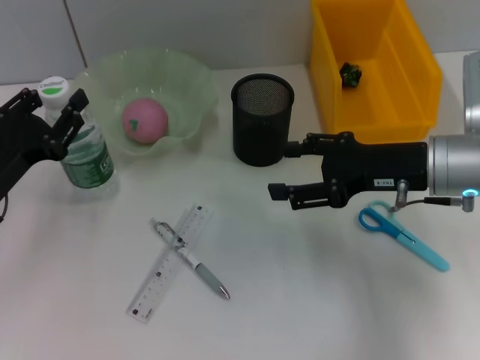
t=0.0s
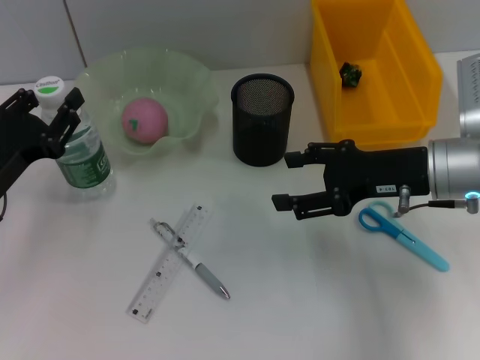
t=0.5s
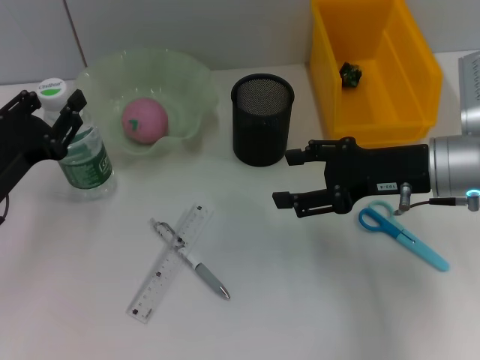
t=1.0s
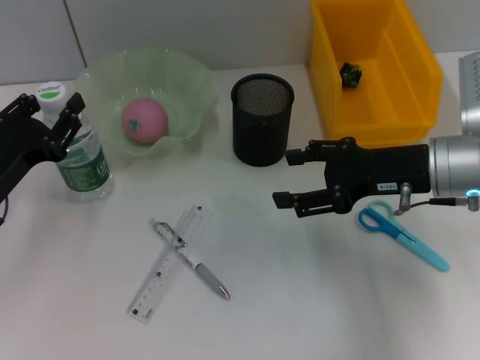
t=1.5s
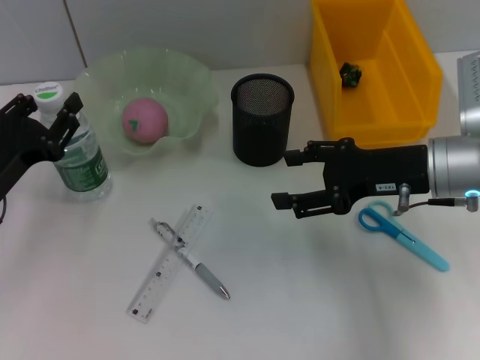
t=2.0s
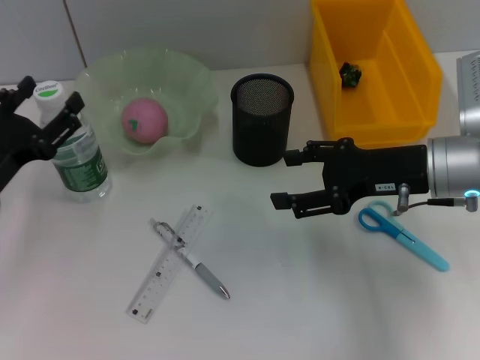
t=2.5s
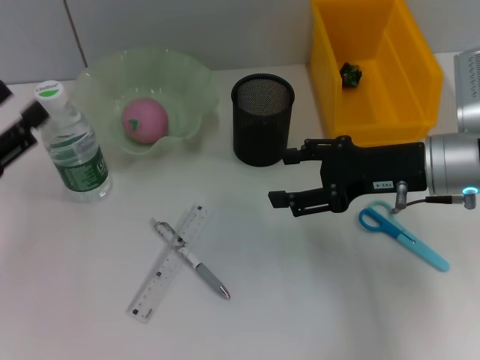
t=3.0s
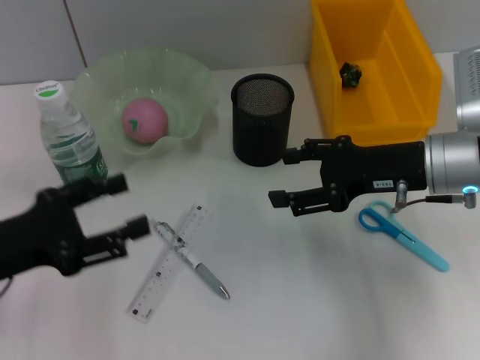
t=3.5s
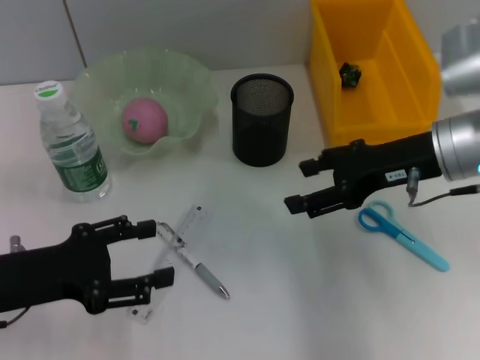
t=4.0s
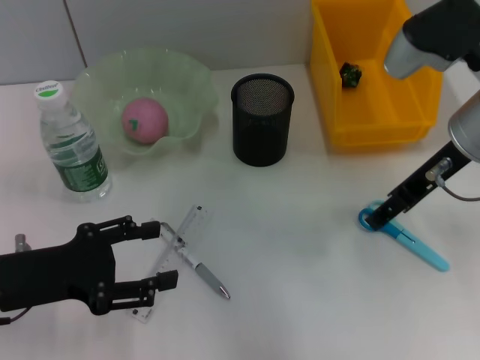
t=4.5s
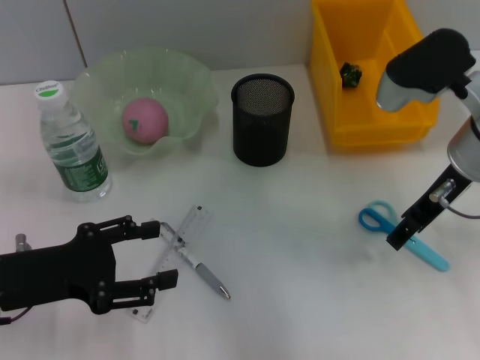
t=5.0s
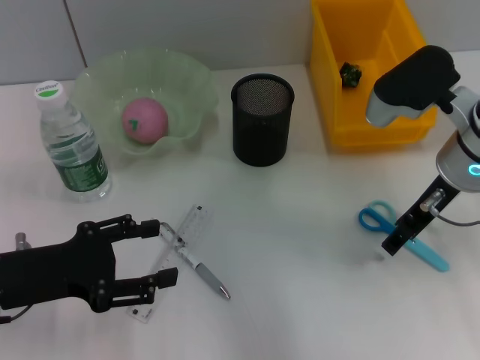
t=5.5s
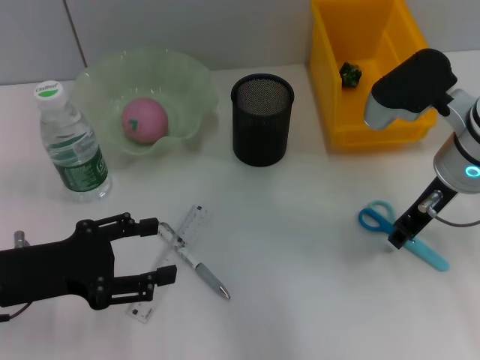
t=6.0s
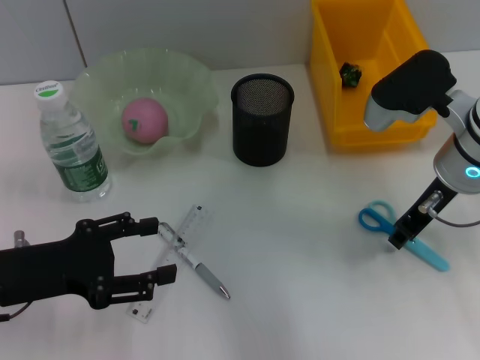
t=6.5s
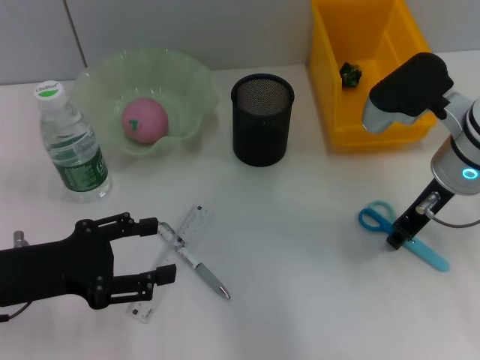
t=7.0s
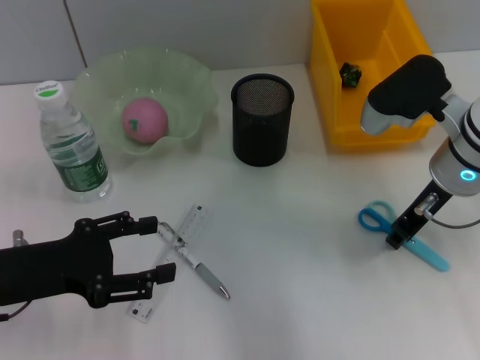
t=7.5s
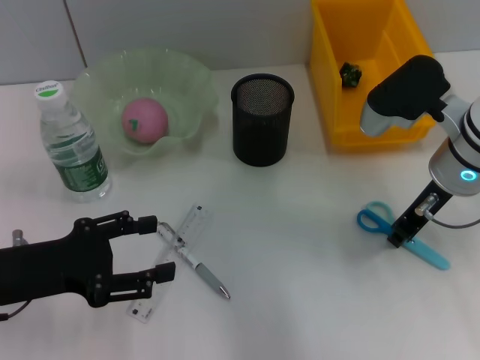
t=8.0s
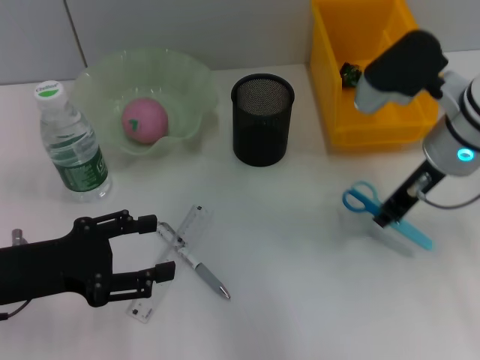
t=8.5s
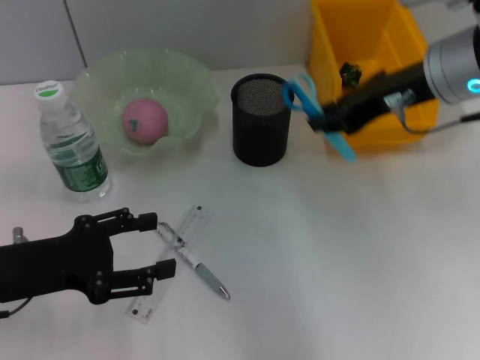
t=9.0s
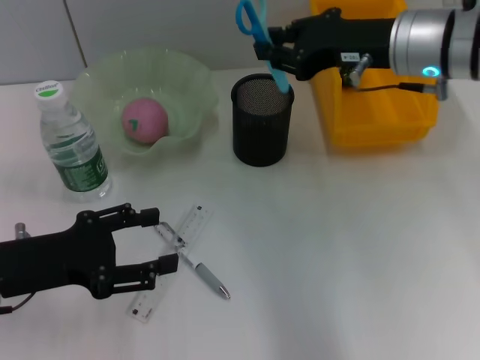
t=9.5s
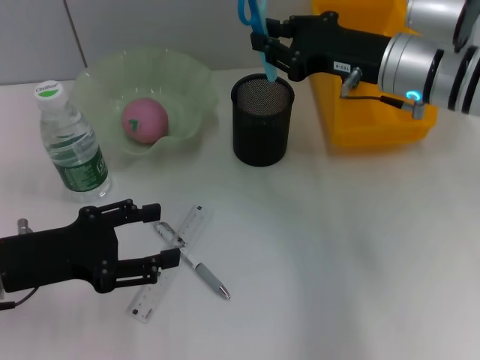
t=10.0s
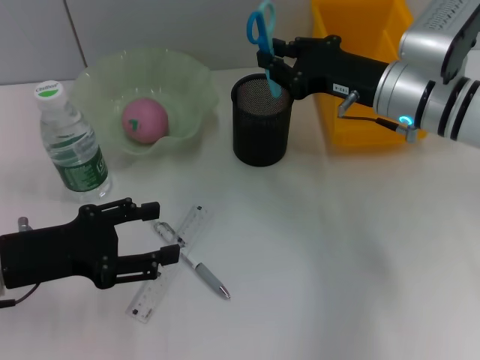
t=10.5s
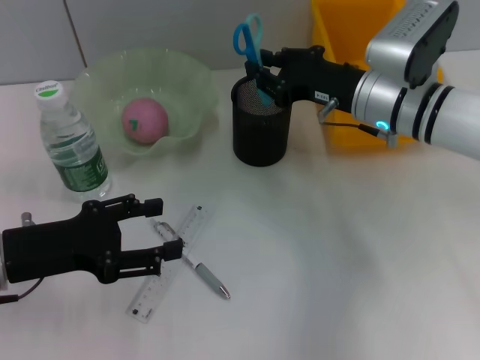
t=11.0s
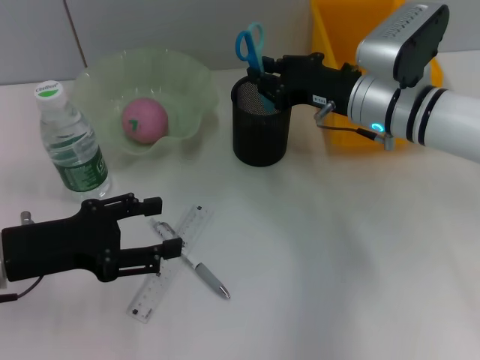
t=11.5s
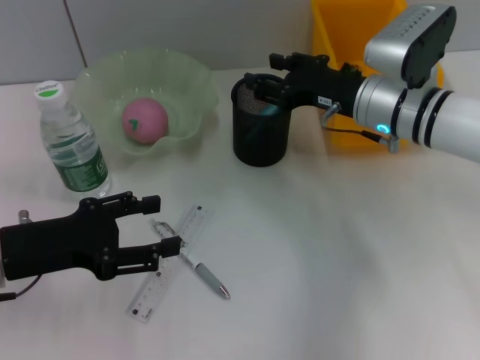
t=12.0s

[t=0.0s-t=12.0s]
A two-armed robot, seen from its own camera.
Step, t=0.0s to t=2.5s: Place the water bottle on the table with the left hand.
Step, t=3.0s to t=8.5s: Grab the blue scissors with the right hand.
t=0.0s to t=2.0s: Both grippers stay put.
t=2.0s to t=4.0s: The left gripper moves backward, roughly 5 cm, and opens its fingers.
t=4.0s to t=6.0s: The right gripper closes its fingers.
t=6.0s to t=8.0s: Neither gripper changes place.
t=8.0s to t=10.0s: The right gripper goes upward and returns, some 10 cm each way.
t=10.0s to t=12.0s: The right gripper moves downward, approximately 5 cm, and opens up.

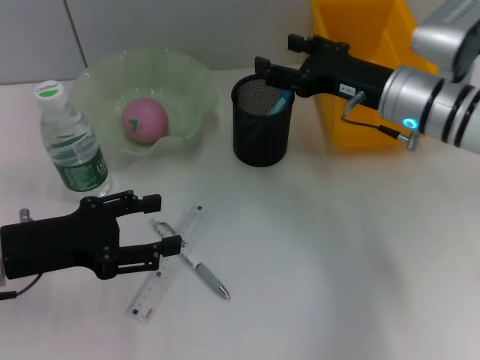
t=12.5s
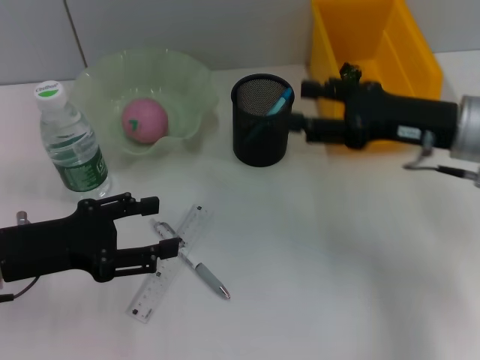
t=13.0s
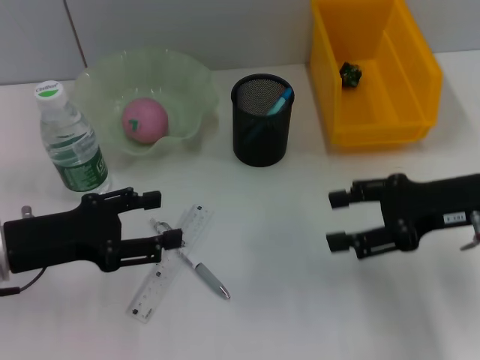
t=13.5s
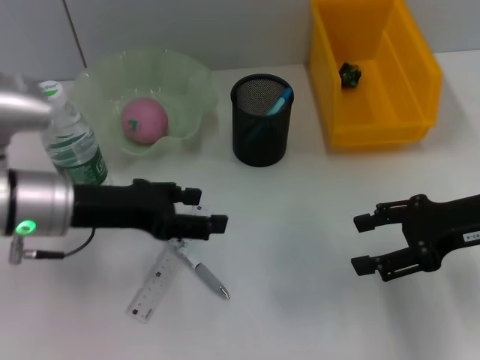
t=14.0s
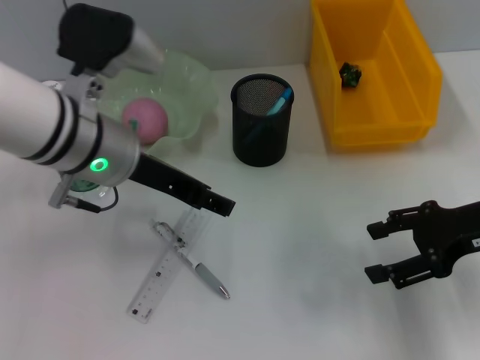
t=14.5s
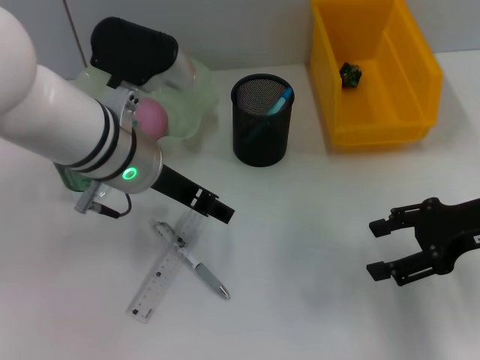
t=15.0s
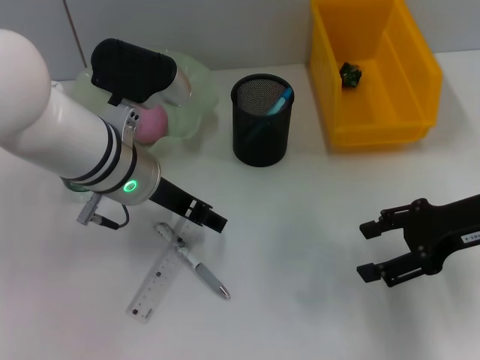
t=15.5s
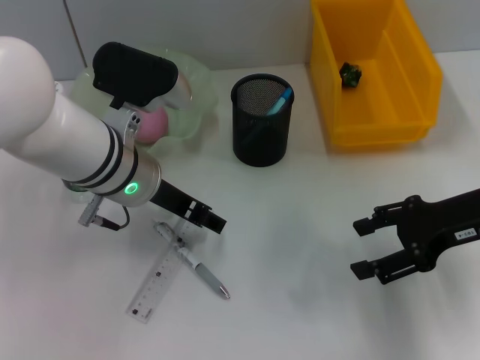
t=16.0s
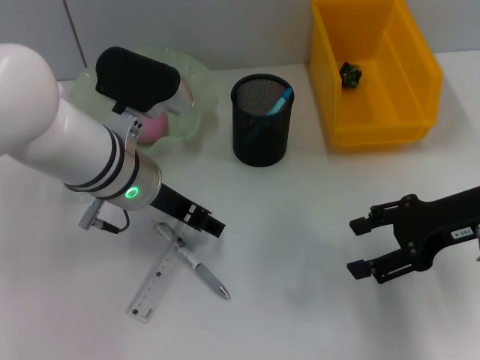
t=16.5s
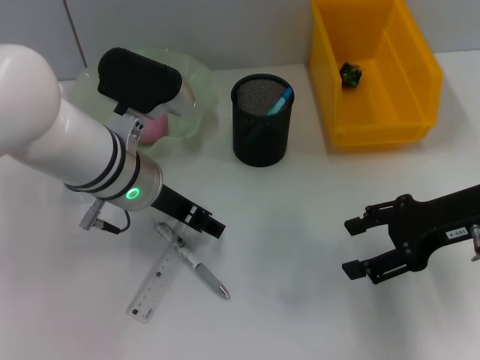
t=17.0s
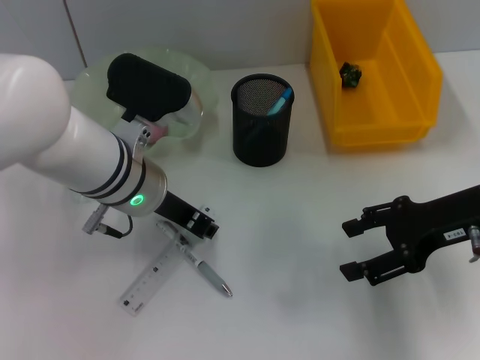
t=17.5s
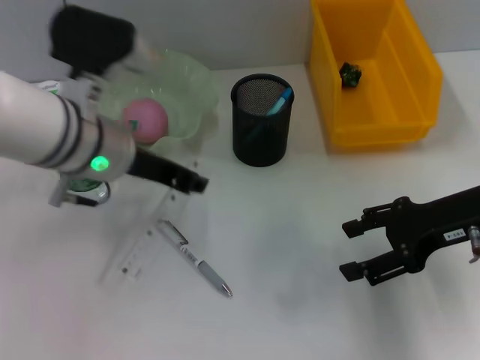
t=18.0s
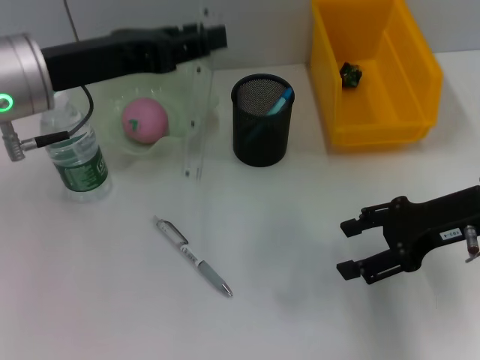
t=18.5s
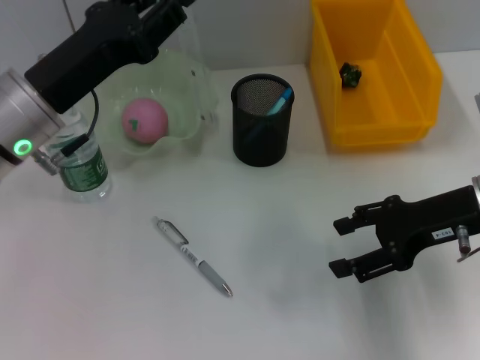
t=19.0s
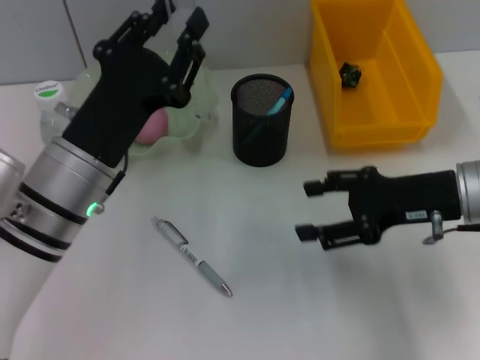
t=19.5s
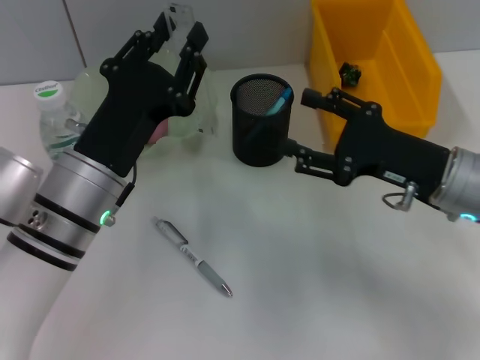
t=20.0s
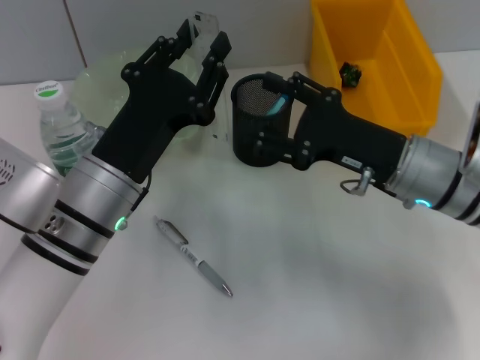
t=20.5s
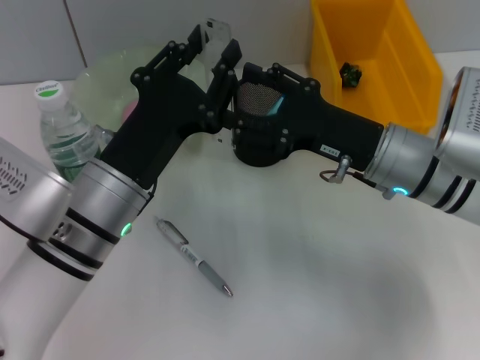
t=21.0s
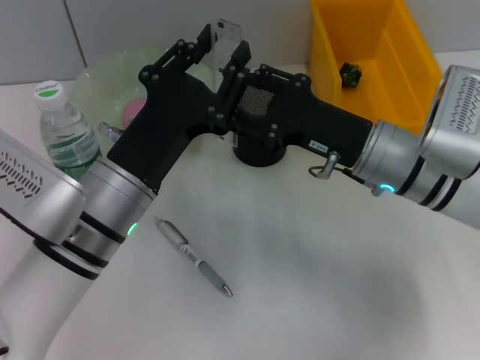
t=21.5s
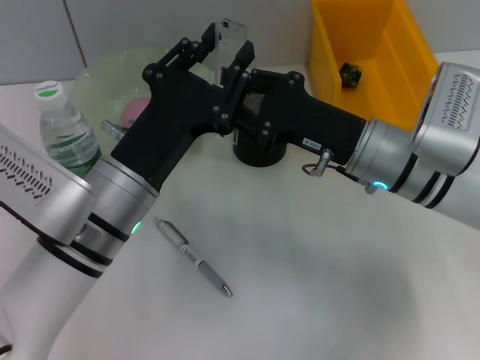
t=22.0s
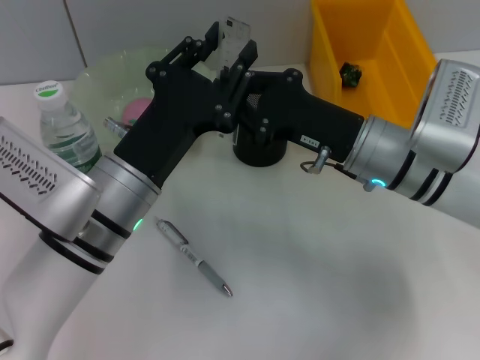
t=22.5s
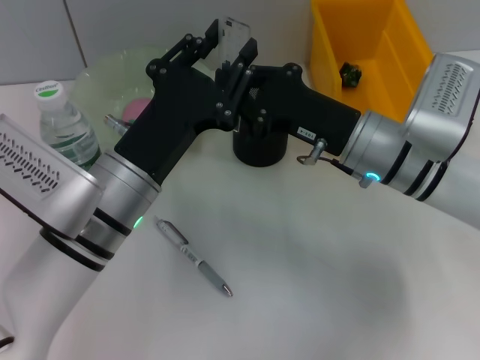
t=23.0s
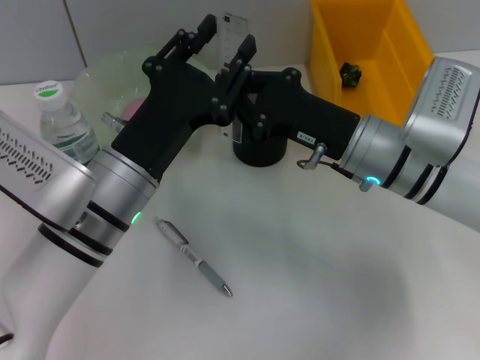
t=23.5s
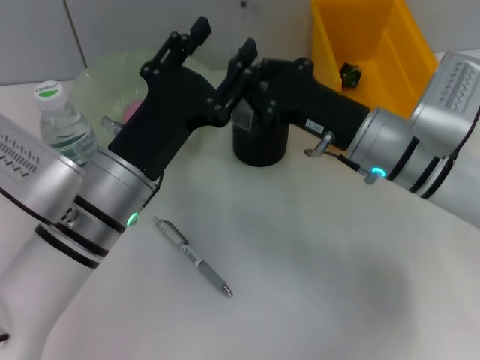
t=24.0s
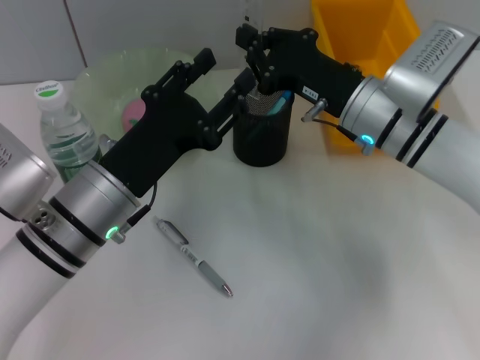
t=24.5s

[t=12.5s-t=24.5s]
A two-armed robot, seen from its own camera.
Step, t=12.5s to t=17.5s: Grab the ruler with the left hand.
Step, t=18.0s to t=24.0s: Pass the ruler from the left hand to the right hand.
t=12.5s to t=14.5s: The left gripper travels to the right, upward and forward by roughly 15 cm, while the right gripper moves to the right and backward, roughly 15 cm.
t=14.5s to t=16.5s: The left gripper moves some 5 cm.
t=16.5s to t=18.5s: The left gripper travels upward and to the left by about 10 cm, and closes.
t=18.5s to t=20.5s: The right gripper shifts approximately 10 cm to the left, while the left gripper travels downward, backward and to the right by roughly 15 cm.
t=20.5s to t=22.5s: The right gripper closes its fingers.
t=22.5s to t=24.5s: The left gripper opens up.

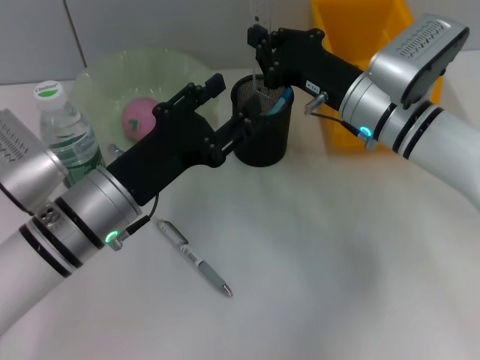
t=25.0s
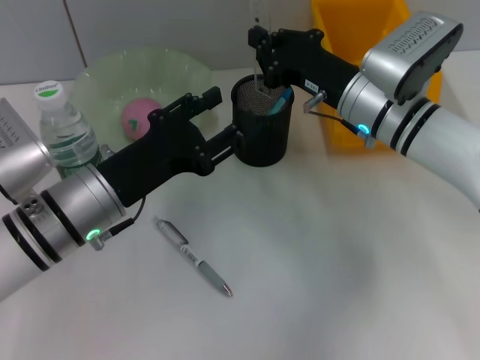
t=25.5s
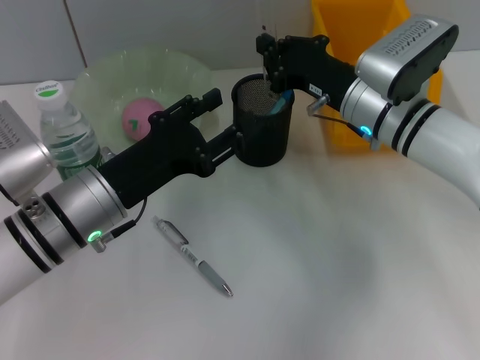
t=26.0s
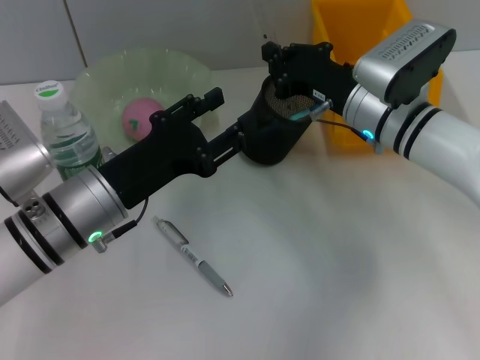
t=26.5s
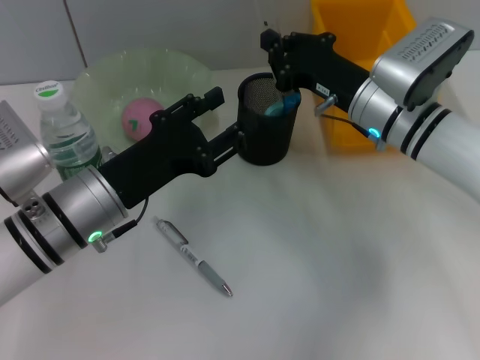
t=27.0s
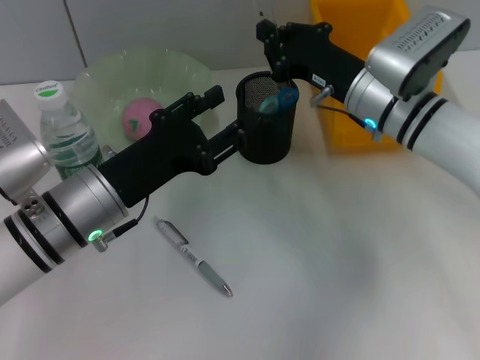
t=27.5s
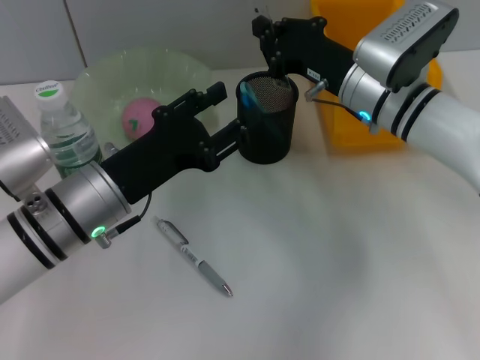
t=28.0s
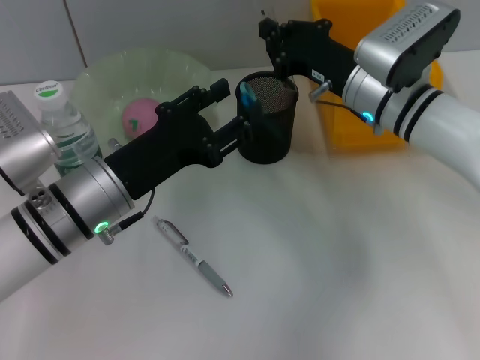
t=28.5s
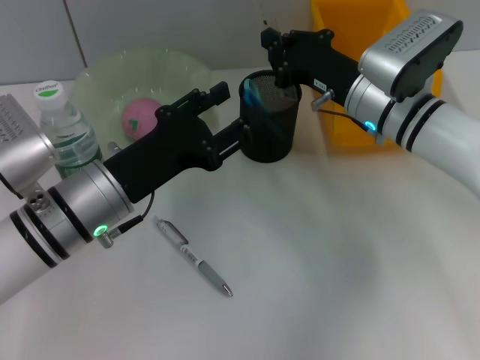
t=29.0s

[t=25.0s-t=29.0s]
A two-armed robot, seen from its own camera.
t=25.0s to t=29.0s: The grippers make only small movements.
